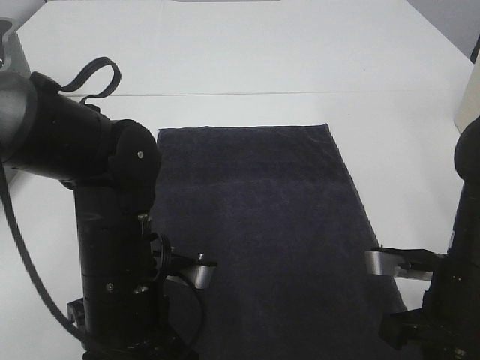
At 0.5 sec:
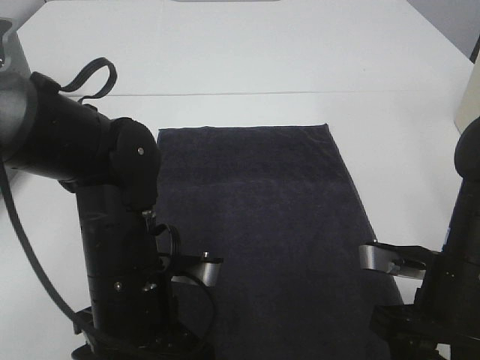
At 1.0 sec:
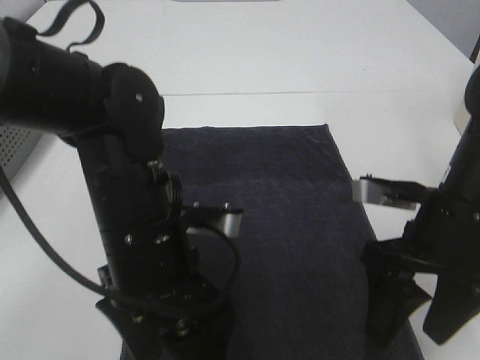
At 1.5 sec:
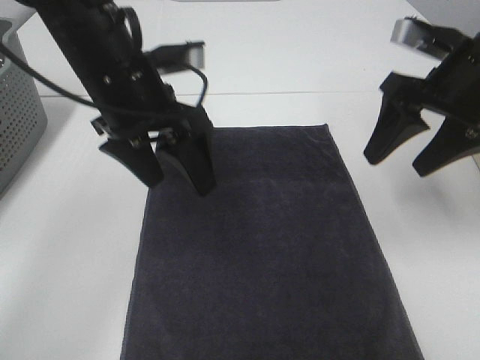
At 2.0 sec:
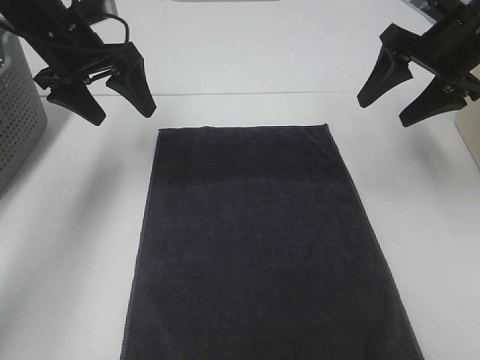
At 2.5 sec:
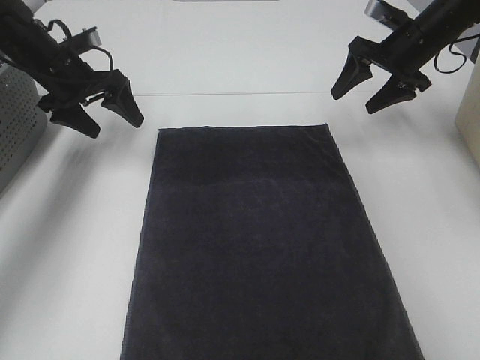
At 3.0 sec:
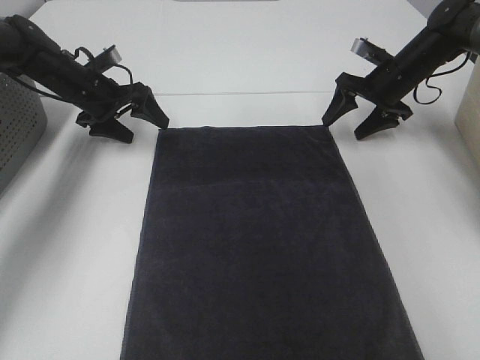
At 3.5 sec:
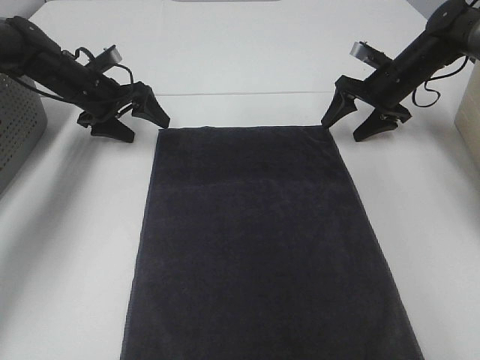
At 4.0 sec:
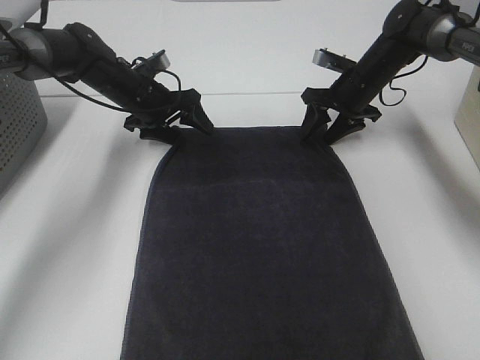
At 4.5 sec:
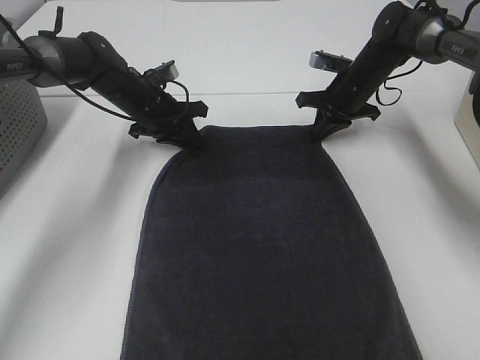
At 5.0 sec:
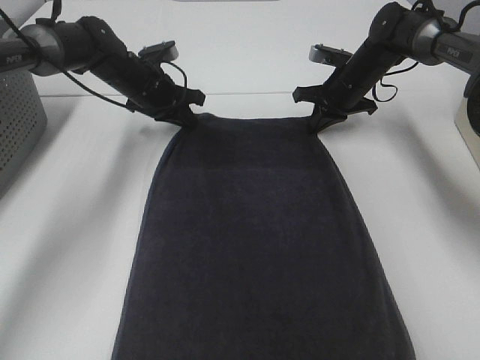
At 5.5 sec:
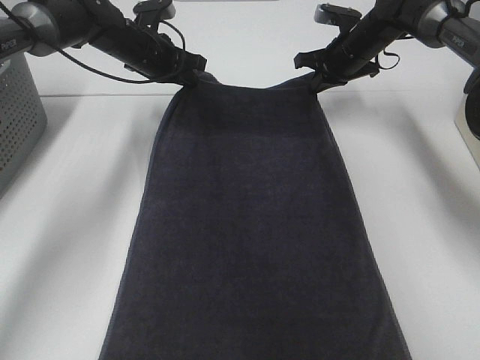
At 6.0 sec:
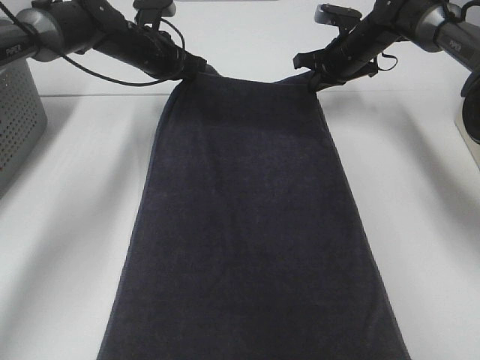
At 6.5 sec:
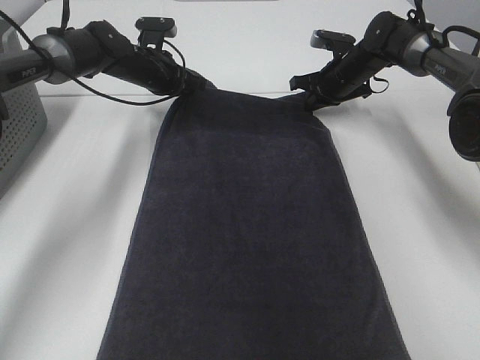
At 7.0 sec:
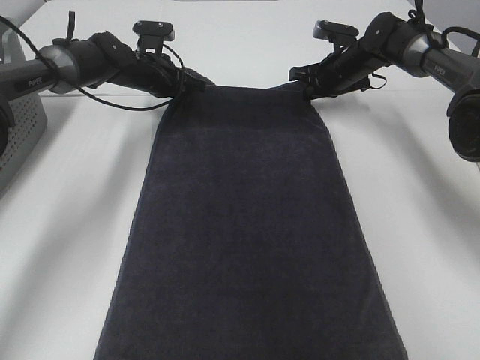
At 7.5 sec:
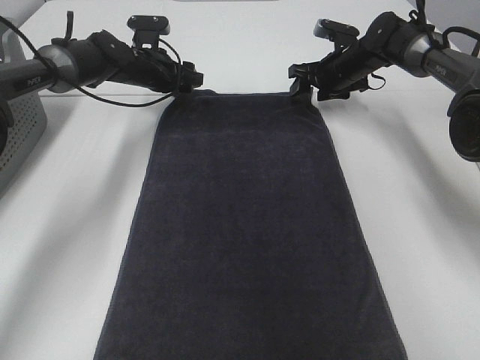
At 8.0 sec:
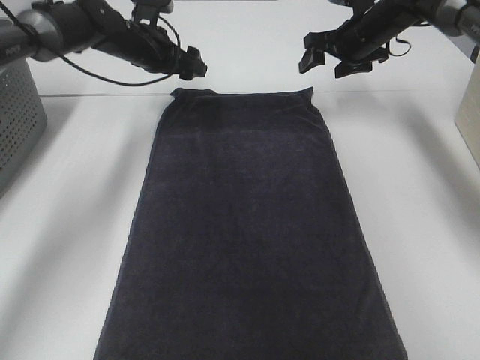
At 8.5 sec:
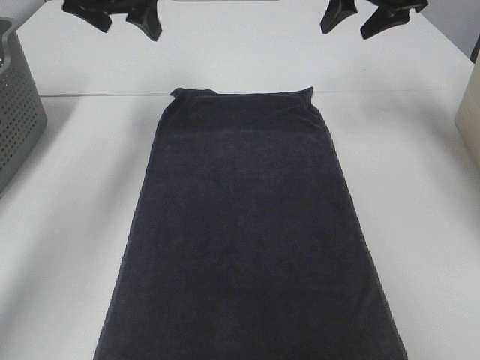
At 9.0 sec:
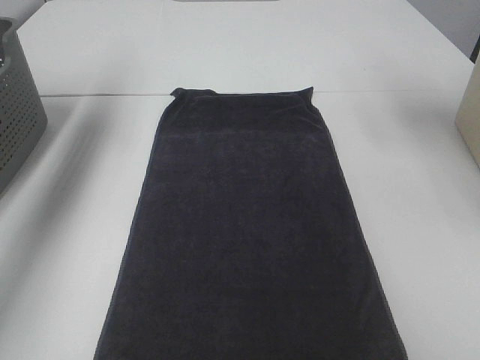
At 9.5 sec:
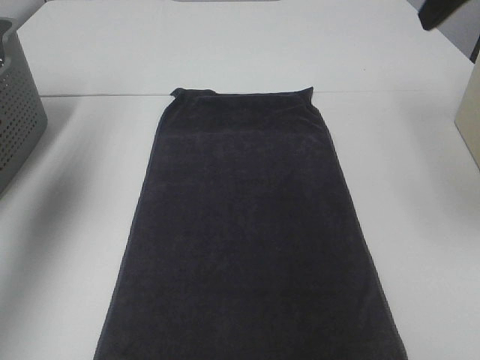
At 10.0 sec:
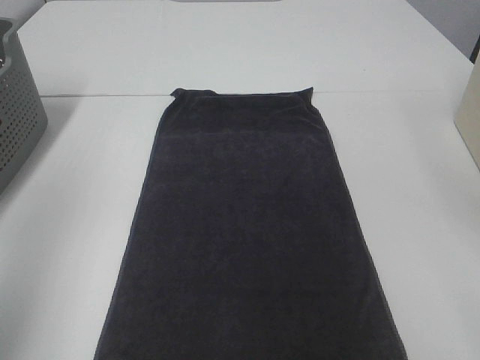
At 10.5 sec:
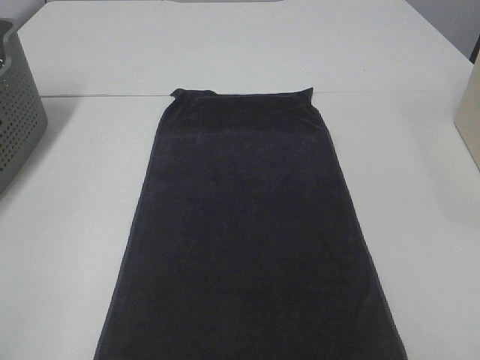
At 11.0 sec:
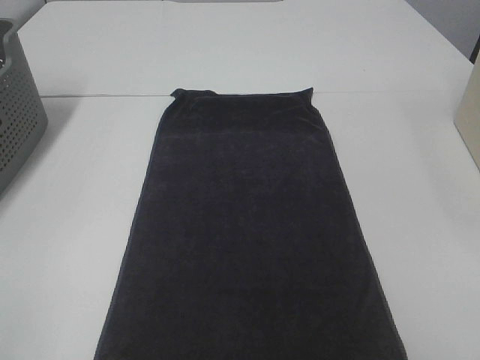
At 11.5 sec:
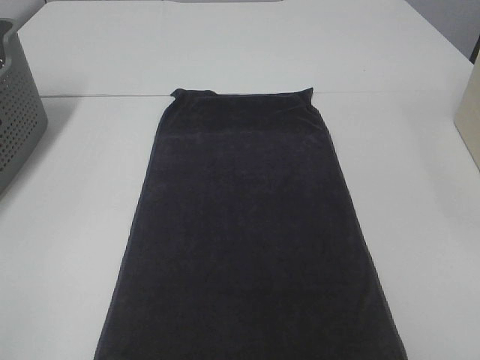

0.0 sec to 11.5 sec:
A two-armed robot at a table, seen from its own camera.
Task of the whole recording: Remove the towel and place it.
0.0 sec to 2.0 sec: The left gripper moves forward, to the left and upward, approximately 30 cm, and opens up. The right gripper shifts some 25 cm forward and upward, and opens.
2.0 sec to 4.0 sec: The two grippers go some 15 cm downward and forward.
4.0 sec to 6.0 sec: The right gripper ends up about 5 cm from where it was, and closes its fingers. The left gripper heads upward, covering approximately 5 cm, and closes.
6.0 sec to 7.5 sec: The left gripper opens; the right gripper opens its fingers.
7.5 sec to 9.5 sec: The right gripper travels backward and upward by roughly 40 cm. The left gripper goes roughly 40 cm upward, backward and to the left.
9.5 sec to 11.5 sec: The right gripper travels backward and downward by about 30 cm. Meanwhile the left gripper goes roughly 35 cm backward.

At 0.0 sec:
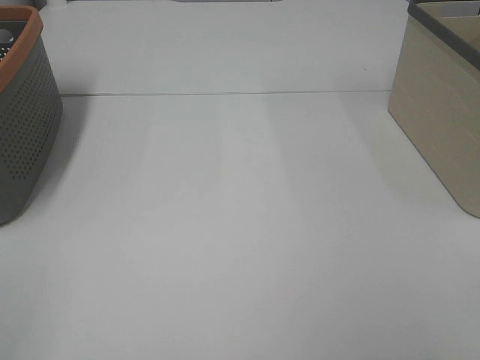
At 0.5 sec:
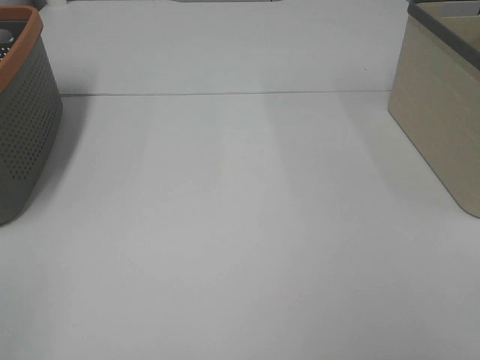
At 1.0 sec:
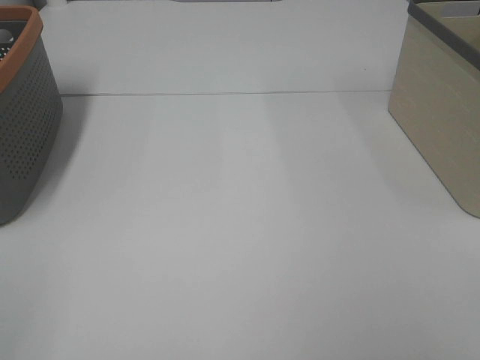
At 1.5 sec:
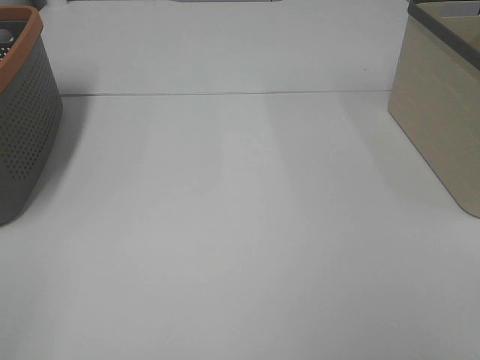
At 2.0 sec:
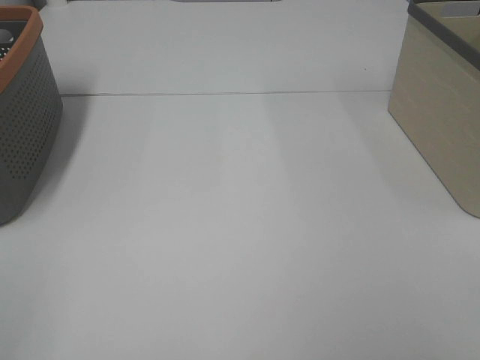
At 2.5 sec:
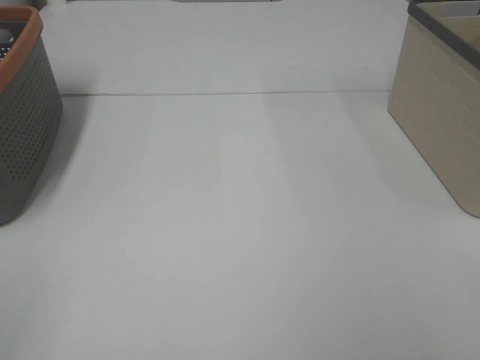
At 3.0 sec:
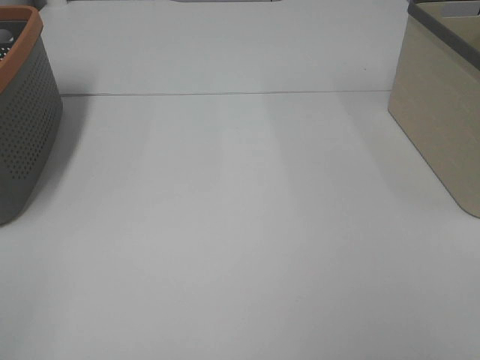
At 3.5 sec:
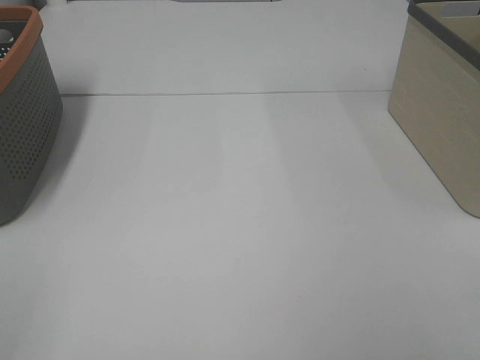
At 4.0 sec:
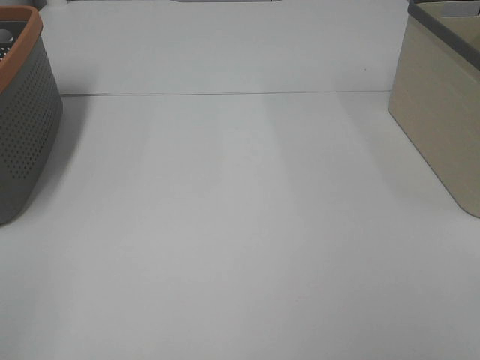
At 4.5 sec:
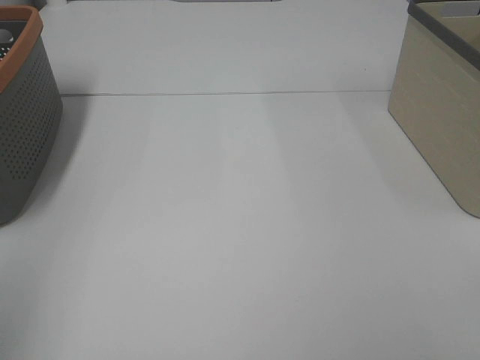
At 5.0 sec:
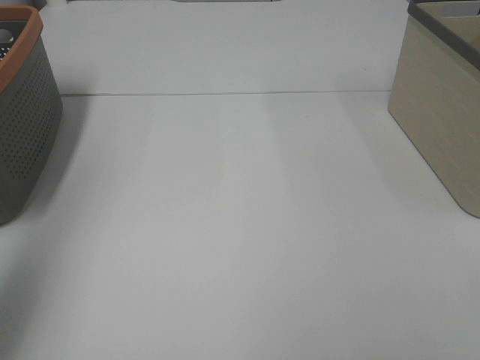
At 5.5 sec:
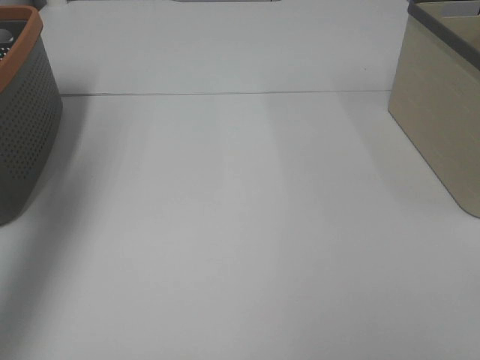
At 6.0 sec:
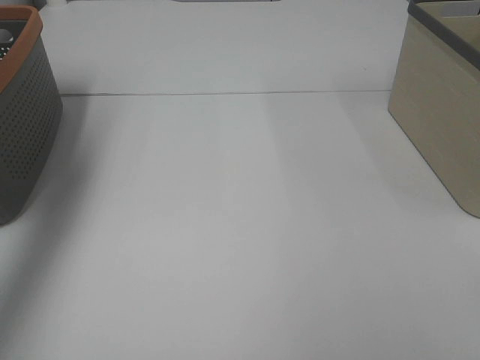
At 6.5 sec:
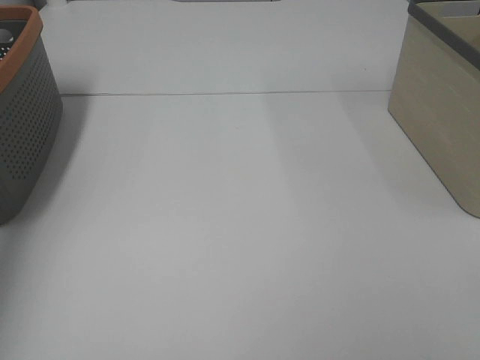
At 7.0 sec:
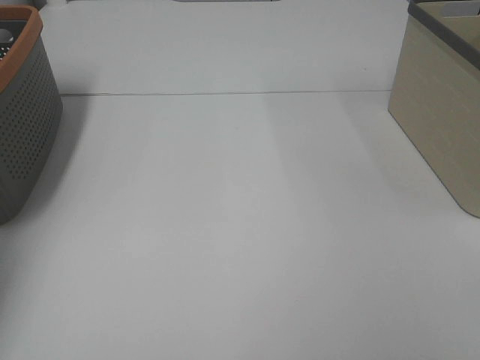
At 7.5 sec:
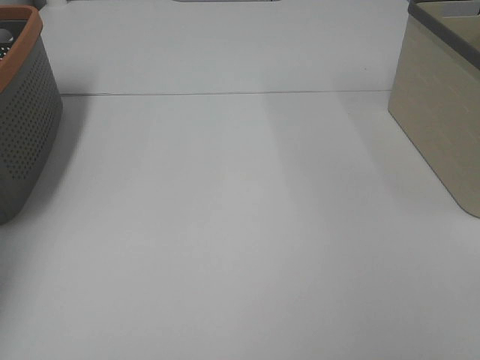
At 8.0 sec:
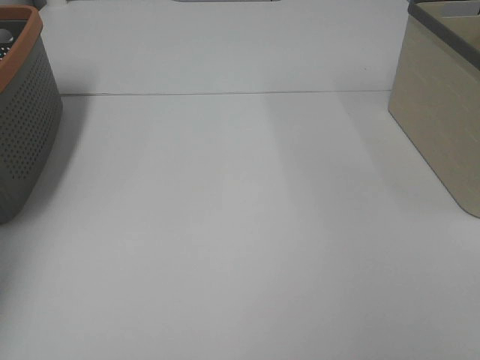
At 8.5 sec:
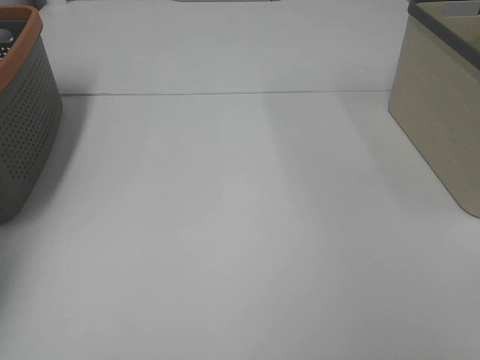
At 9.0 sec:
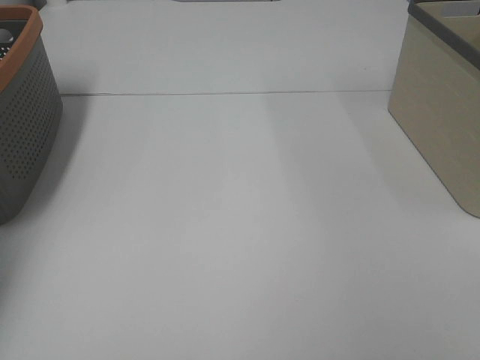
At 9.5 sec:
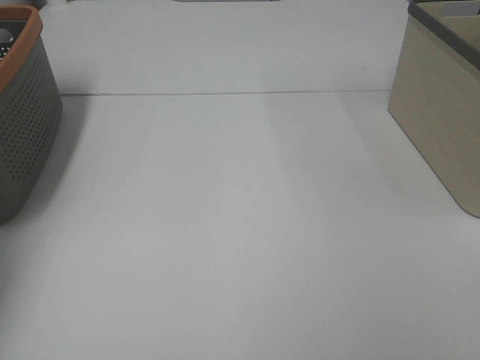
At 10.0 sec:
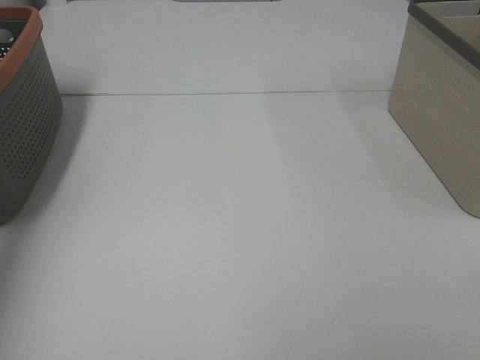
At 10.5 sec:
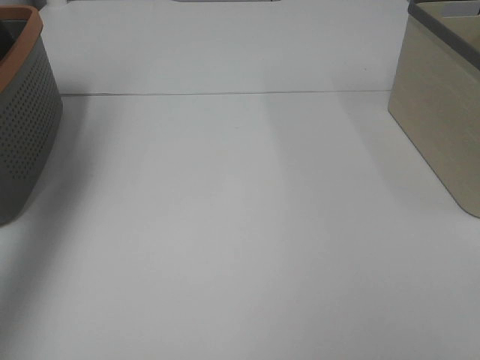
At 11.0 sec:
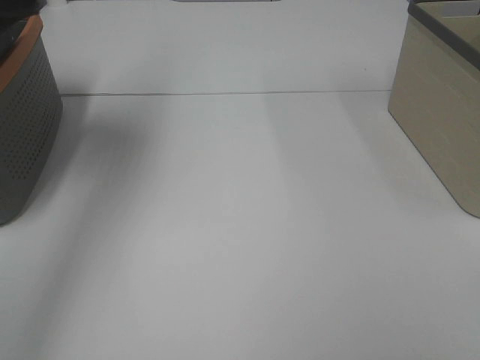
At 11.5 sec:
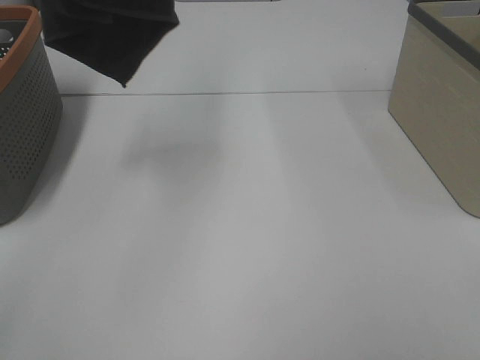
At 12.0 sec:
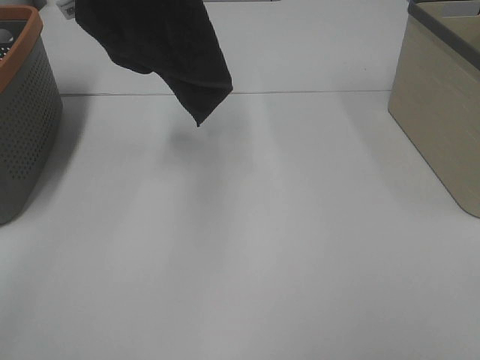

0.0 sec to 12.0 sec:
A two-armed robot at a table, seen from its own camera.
Task of the whole recording: Remove the towel and place it.
0.0 sec to 2.0 sec: Both grippers stay about where they are.
4.0 sec to 6.0 sec: The left gripper travels forward by some 35 cm.
6.0 sec to 8.0 sec: The left gripper goes roughly 20 cm downward, forward and to the left.
10.0 sec to 12.0 sec: The left gripper heads to the right, covering roughly 25 cm.

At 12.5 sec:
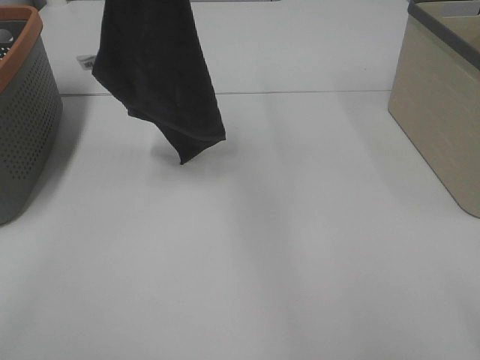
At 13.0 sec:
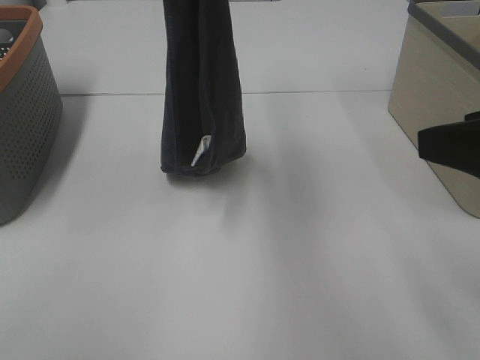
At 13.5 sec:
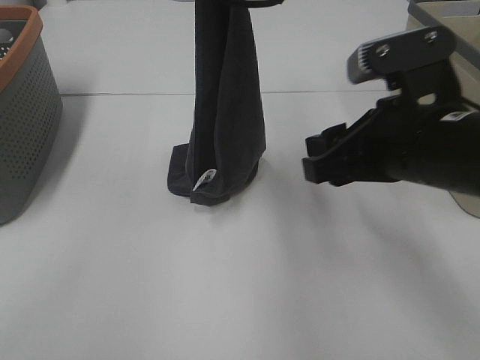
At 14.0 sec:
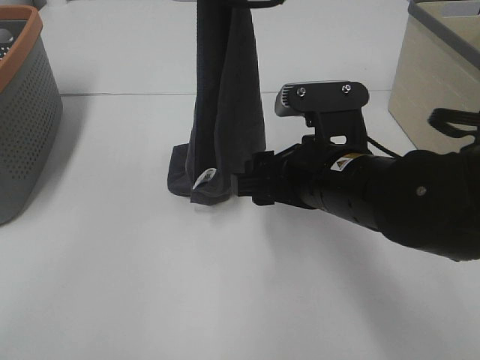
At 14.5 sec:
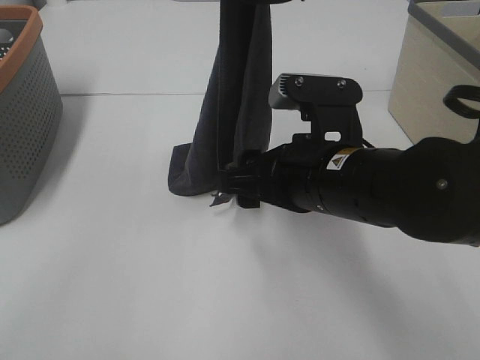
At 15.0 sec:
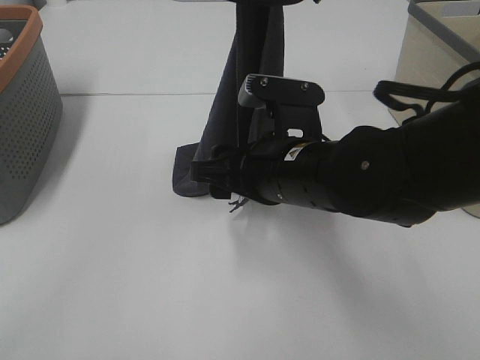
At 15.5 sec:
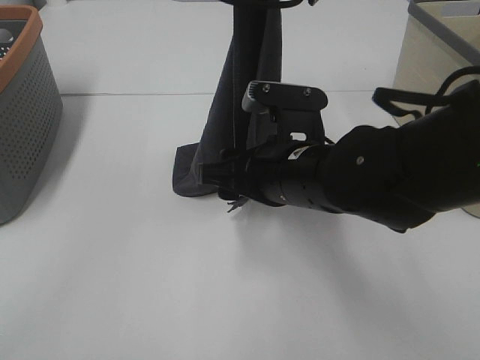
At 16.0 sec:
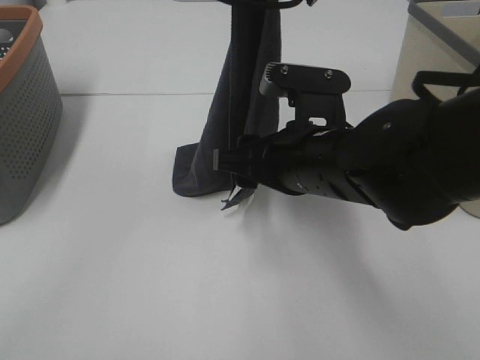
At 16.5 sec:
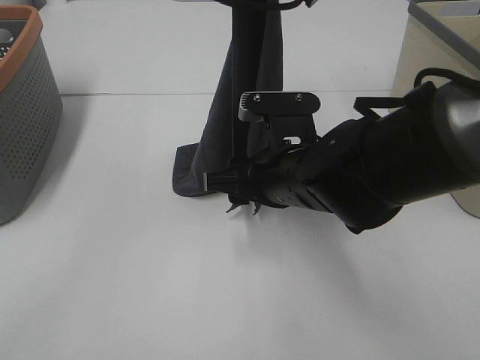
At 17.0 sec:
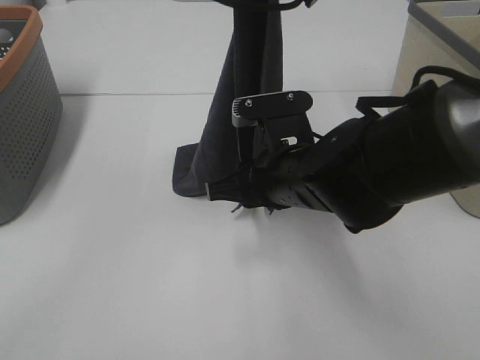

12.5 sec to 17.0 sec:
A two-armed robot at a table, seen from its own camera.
Task of the whole recording: Remove the towel and place it.
Step, 12.5 sec to 16.0 sec: Right hand: grab a corner of the grey towel and straighten it.
12.5 sec to 14.5 sec: The left gripper shifts roughly 10 cm downward and to the right; the right gripper travels to the left, forward and downward by roughly 25 cm.
14.5 sec to 17.0 sec: The right gripper shifts by about 5 cm, and closes.
